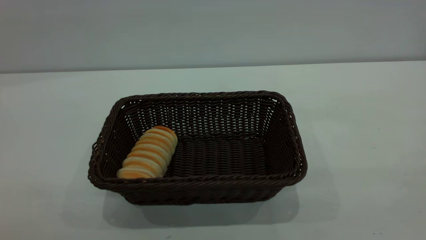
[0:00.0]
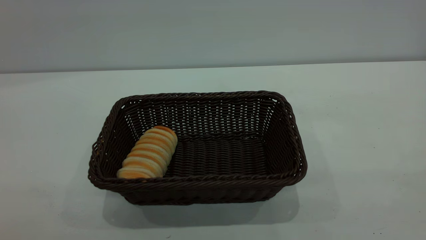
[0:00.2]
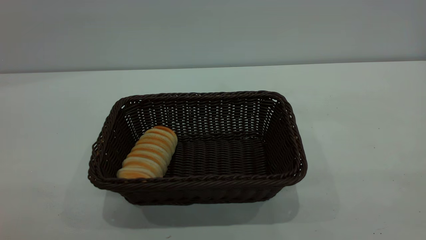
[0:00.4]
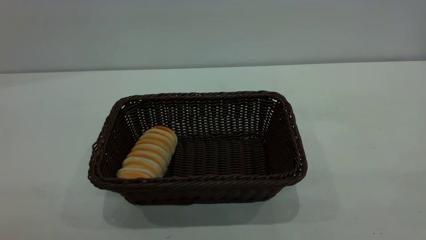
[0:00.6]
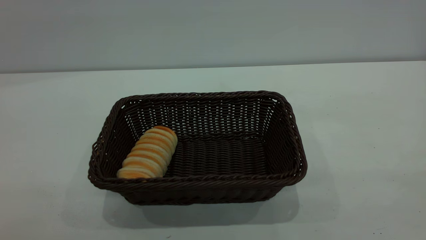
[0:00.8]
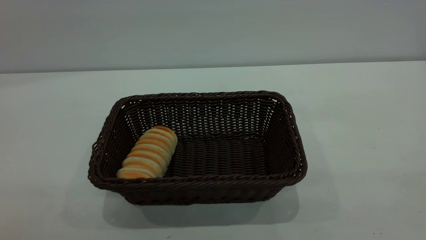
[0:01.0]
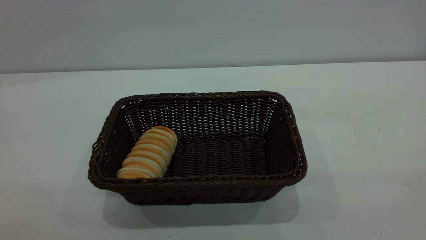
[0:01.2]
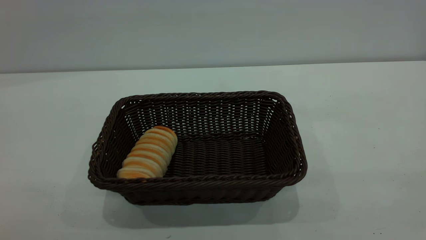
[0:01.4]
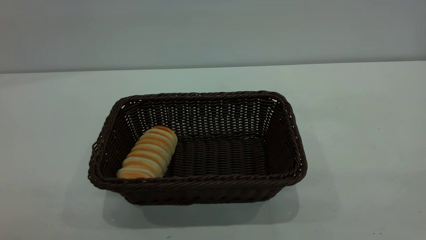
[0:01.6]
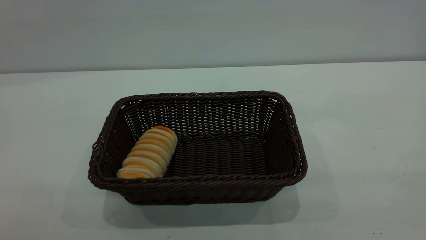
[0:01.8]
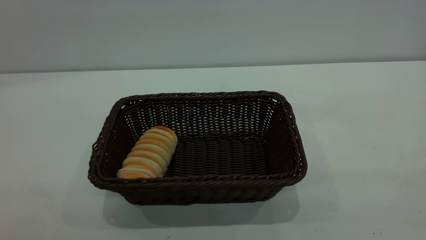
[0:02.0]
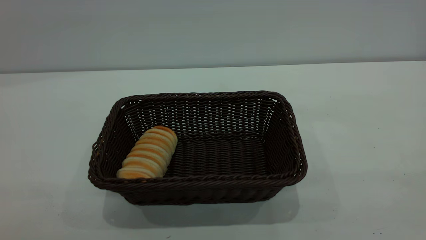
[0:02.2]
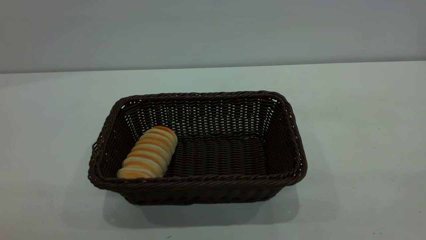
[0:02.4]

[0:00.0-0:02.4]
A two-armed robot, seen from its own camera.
Task of the whole recording: One hand grasps the black basket and places it in the middle of the table, while the other hand picks up the long bread and puts it into the black basket.
0:00.0 to 0:02.4: Neither gripper changes place.

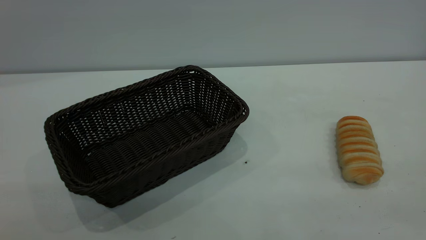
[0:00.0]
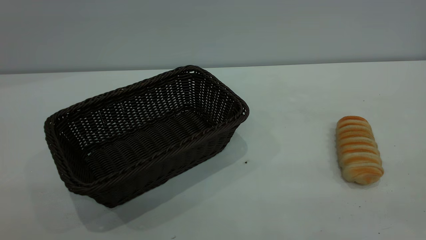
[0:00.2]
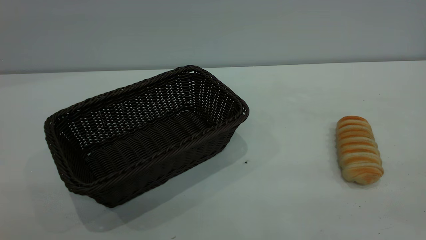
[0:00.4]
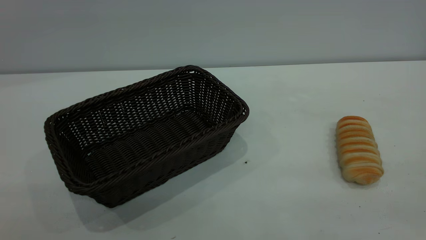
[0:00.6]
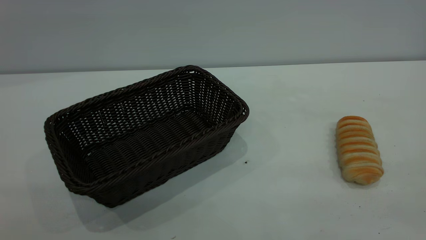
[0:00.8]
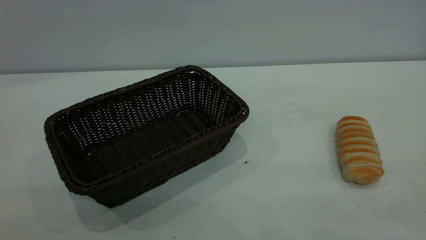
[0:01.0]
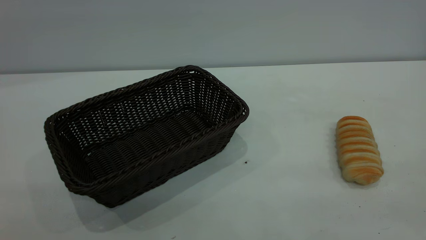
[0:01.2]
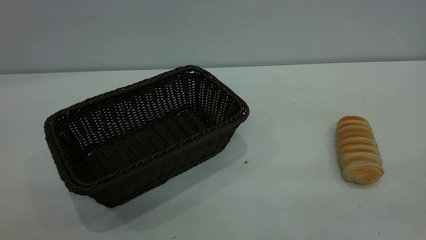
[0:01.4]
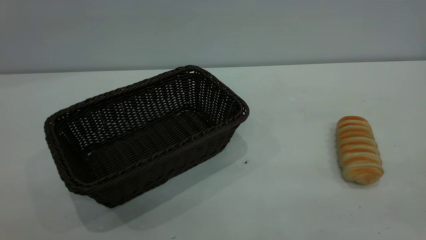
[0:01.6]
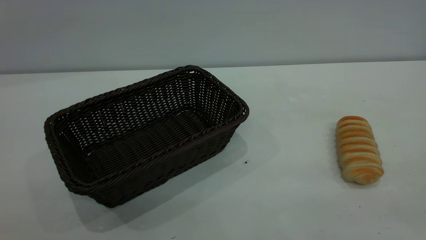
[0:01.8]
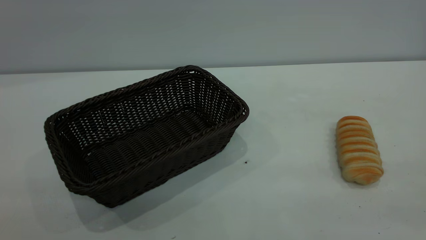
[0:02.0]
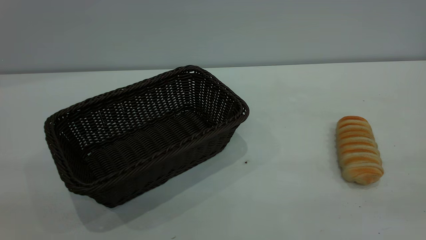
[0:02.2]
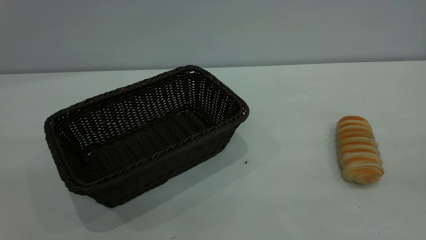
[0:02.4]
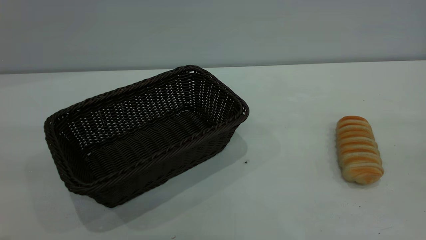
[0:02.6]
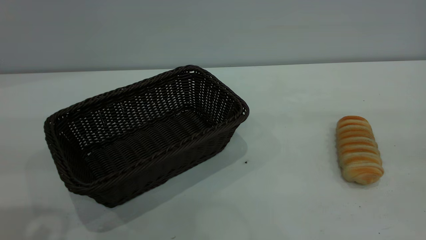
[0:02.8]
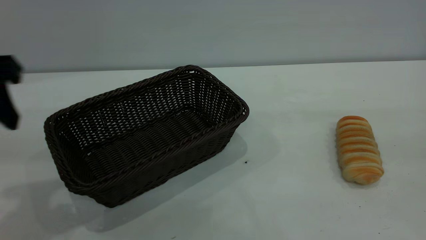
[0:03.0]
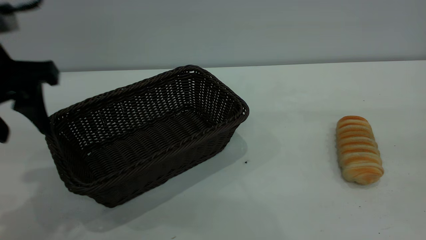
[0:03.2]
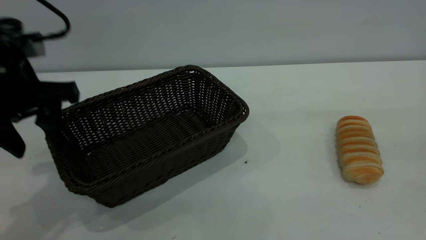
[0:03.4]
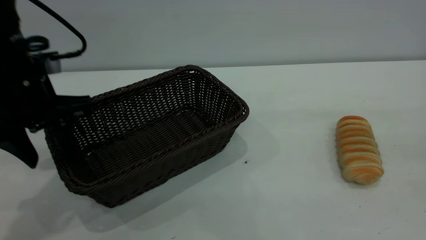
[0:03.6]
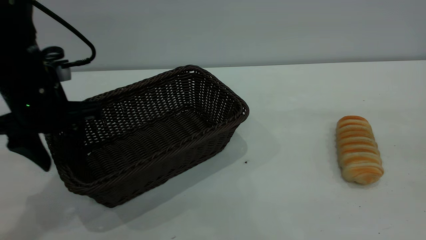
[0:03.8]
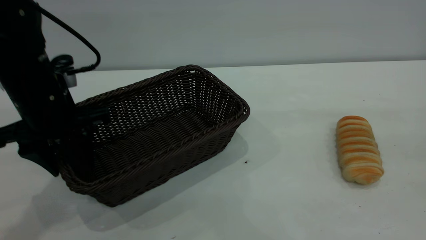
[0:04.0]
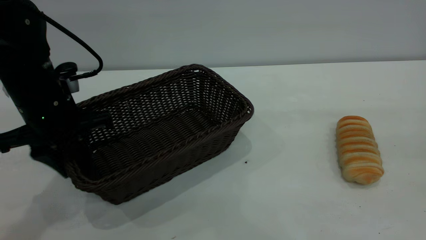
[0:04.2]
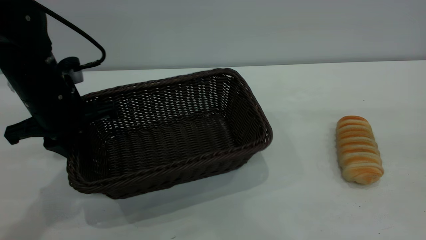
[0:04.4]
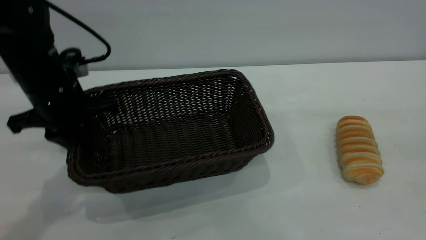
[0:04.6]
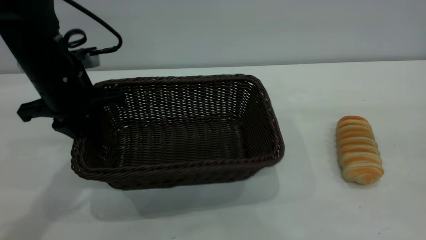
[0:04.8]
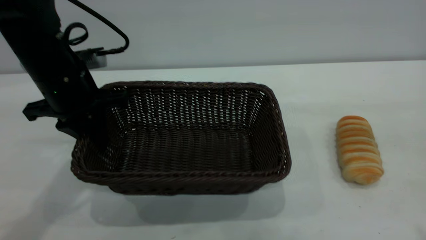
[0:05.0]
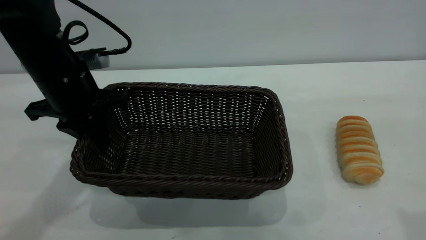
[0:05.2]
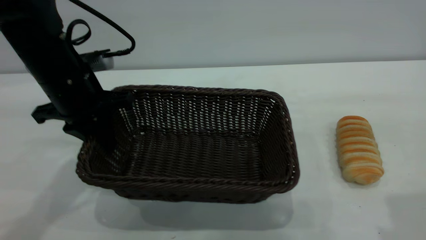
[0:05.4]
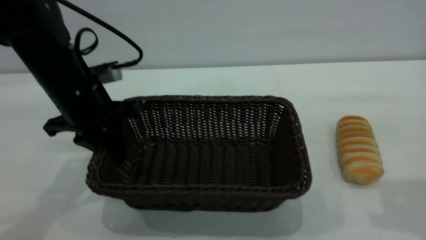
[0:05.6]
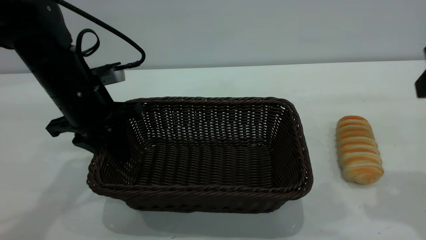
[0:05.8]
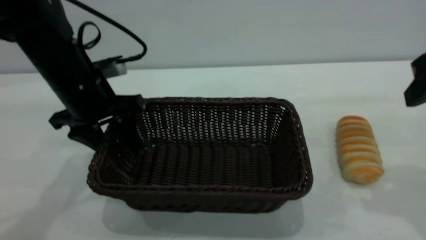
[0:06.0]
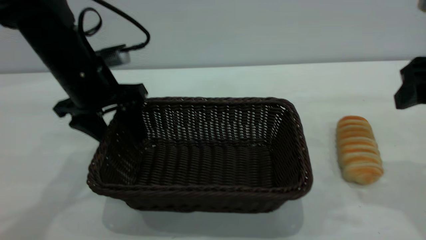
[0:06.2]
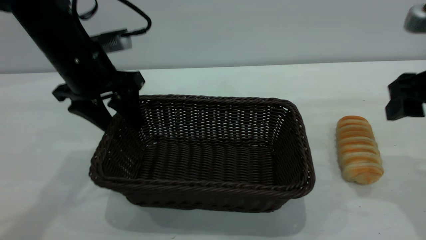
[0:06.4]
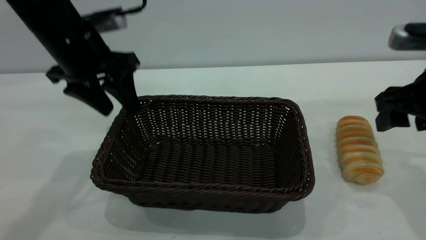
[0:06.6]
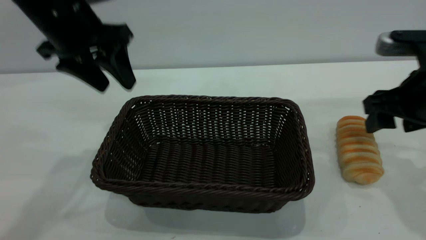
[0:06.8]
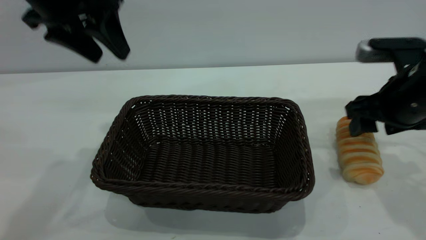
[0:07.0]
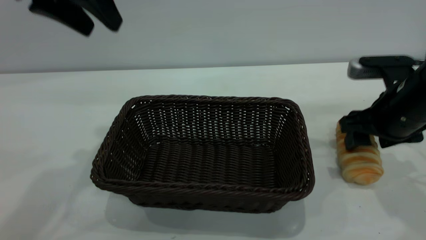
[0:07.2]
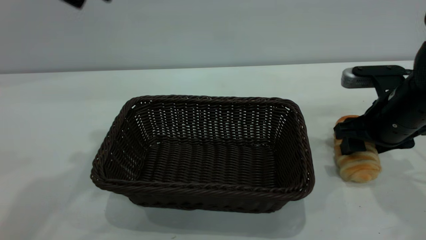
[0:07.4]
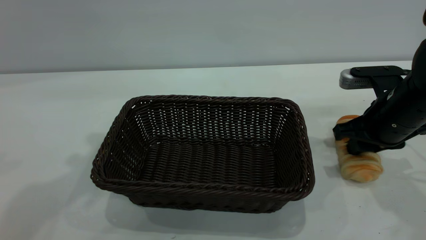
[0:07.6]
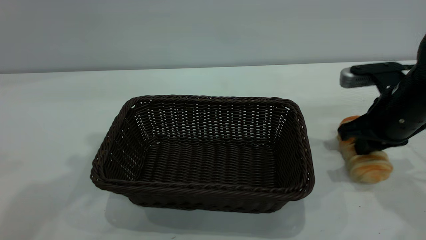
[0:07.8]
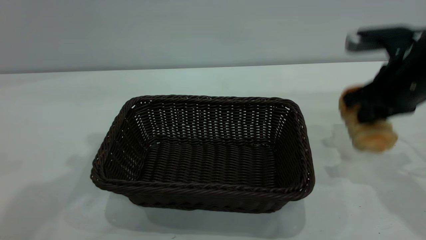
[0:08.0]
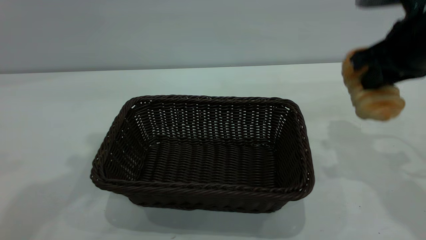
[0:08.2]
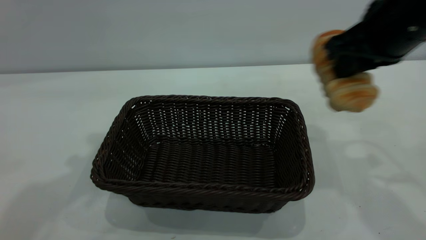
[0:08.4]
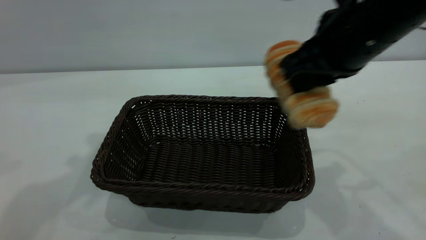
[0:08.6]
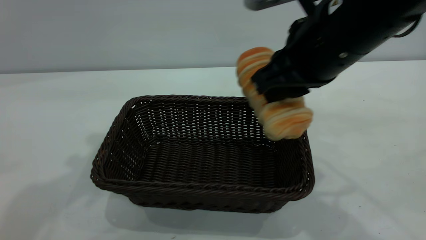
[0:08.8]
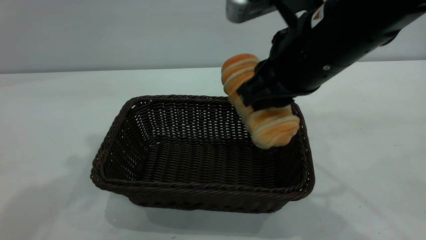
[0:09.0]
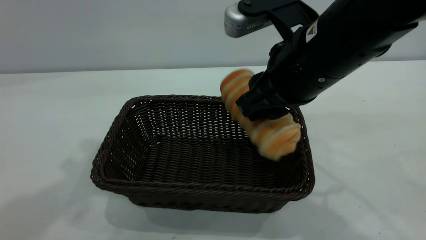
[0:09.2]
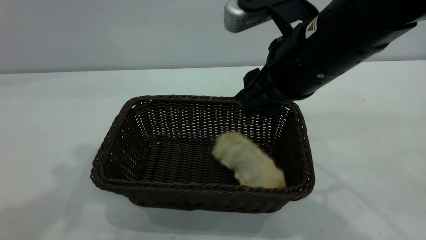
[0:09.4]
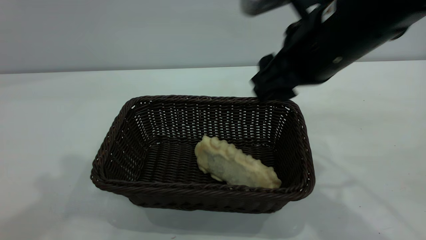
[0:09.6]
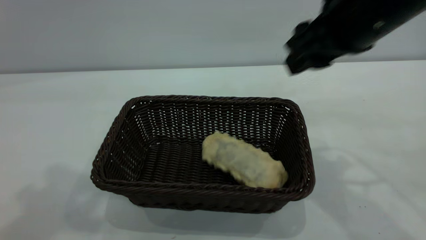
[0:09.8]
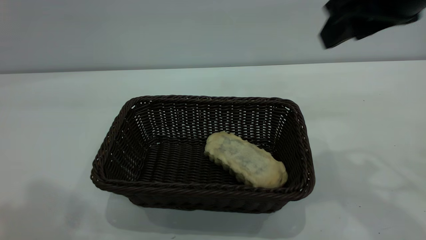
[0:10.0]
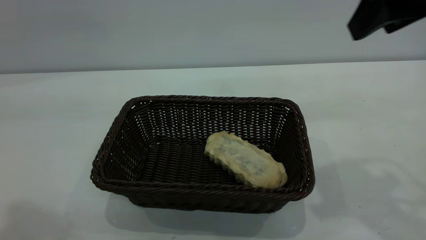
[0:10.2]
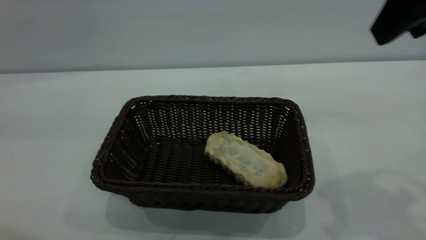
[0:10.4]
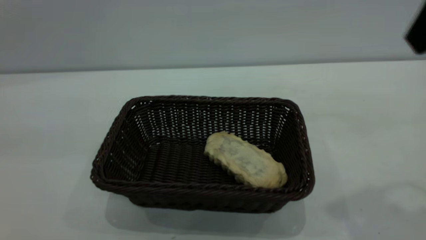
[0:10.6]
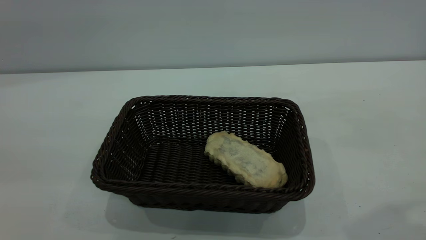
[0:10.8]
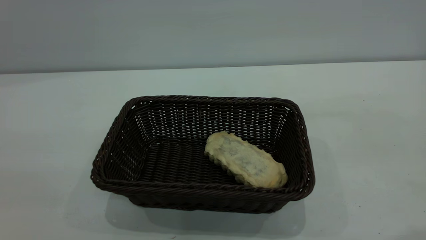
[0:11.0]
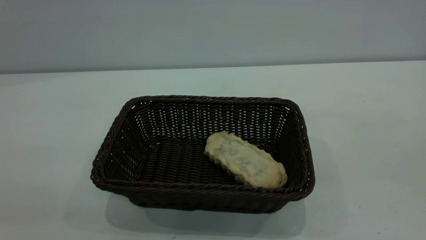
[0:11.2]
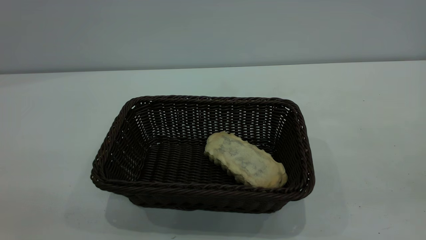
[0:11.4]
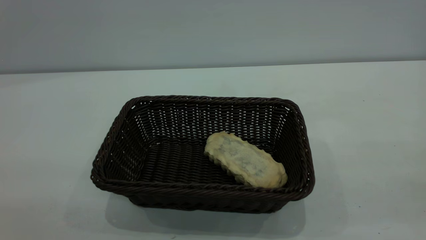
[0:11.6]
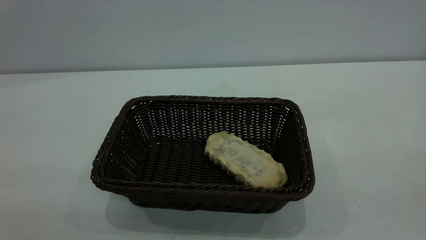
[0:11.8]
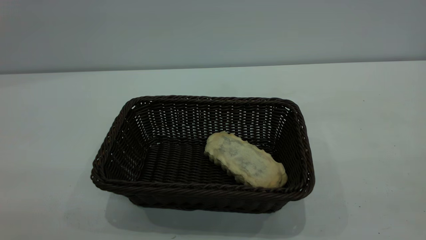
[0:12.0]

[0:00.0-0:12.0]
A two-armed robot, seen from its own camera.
Task of the whole recording: One hand grasps the black basket and places it in the middle of the table, while the other hand picks up the long bread and puts it into the black basket.
Step, 0:00.0 to 0:06.6: Move the basket to the center of view.
Step, 0:08.4 to 0:09.8: place the bread into the basket.
0:01.6 to 0:03.0: The left gripper shifts roughly 25 cm forward.
0:03.0 to 0:04.4: The left gripper goes about 15 cm downward and forward, and closes up.
0:04.4 to 0:06.0: The right gripper heads forward and downward, covering about 20 cm. Meanwhile the left gripper opens up.
0:06.0 to 0:07.6: The left gripper goes some 20 cm upward, while the right gripper moves downward and forward, approximately 15 cm, and closes up.
0:07.6 to 0:09.0: The right gripper moves to the left, upward and backward, roughly 20 cm.
0:09.0 to 0:10.4: The right gripper is displaced upward and to the right by about 15 cm, and opens, while the left gripper goes some 20 cm backward.
0:10.4 to 0:12.0: The right gripper travels backward by roughly 20 cm.

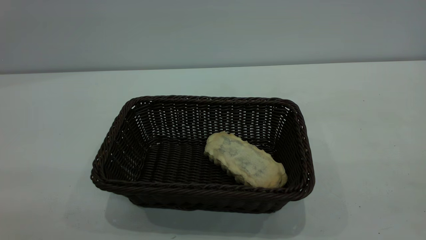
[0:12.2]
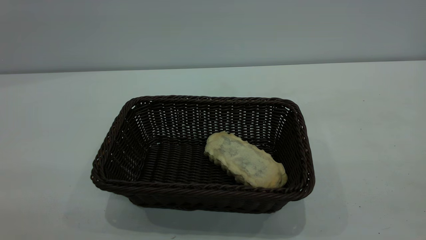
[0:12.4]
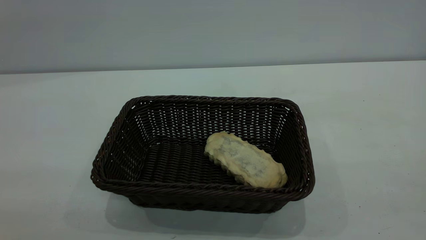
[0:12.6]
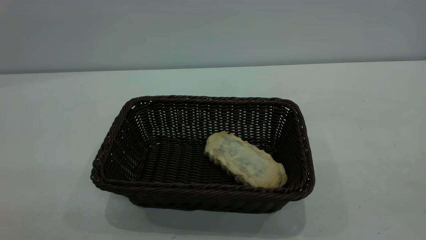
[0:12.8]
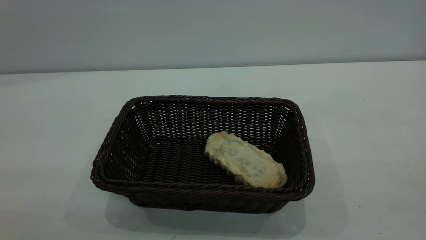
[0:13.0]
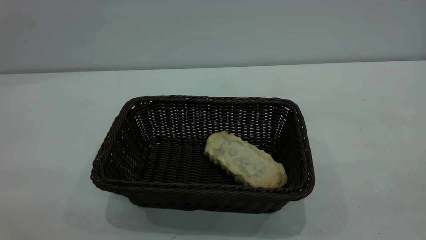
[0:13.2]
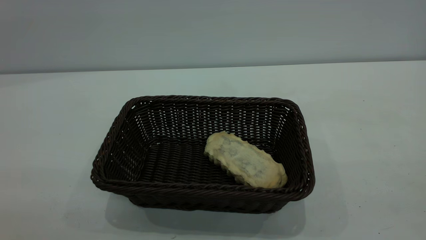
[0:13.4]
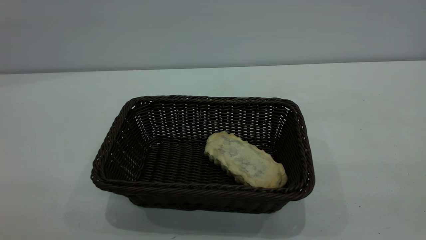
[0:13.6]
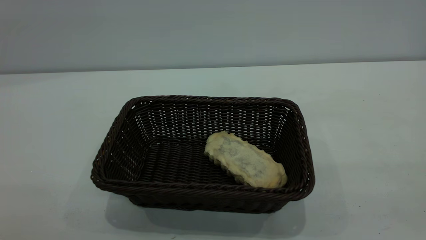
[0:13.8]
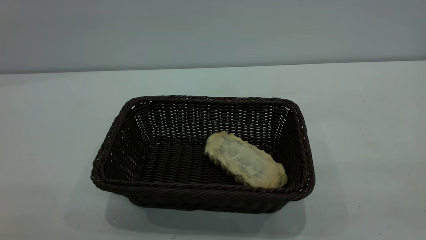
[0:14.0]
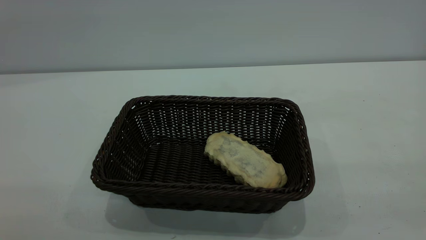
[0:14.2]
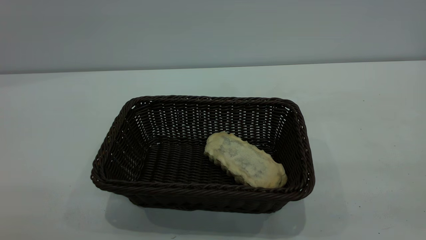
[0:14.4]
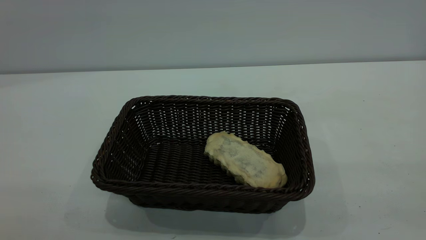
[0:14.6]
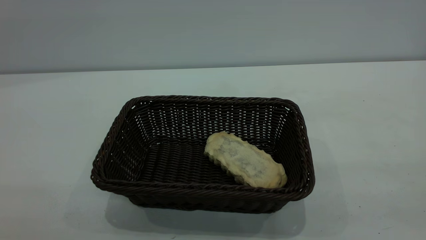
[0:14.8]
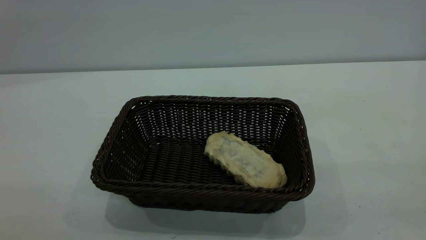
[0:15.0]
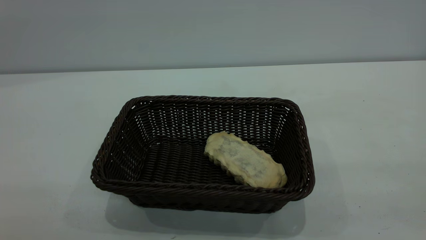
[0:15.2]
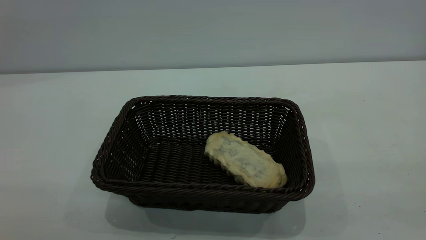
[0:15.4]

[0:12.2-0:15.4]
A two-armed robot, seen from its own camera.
Task of the whole recording: One hand grasps the black basket and places it in the middle of the table, while the other hand picks up the long bread and puts it into the black basket.
0:13.8 to 0:15.4: The two grippers keep their place.
